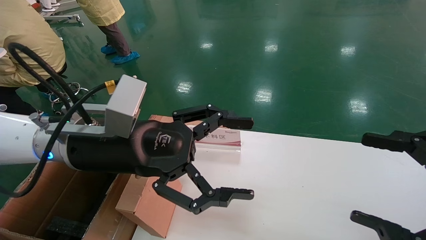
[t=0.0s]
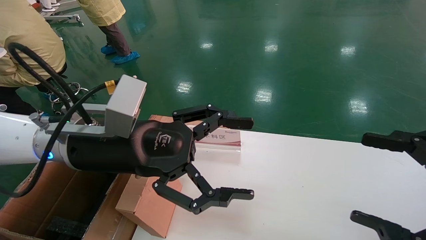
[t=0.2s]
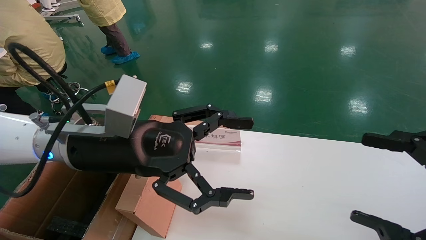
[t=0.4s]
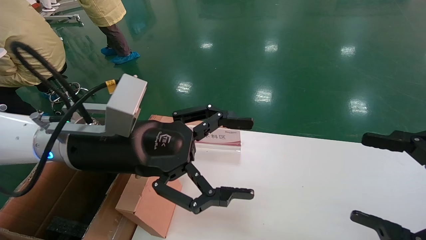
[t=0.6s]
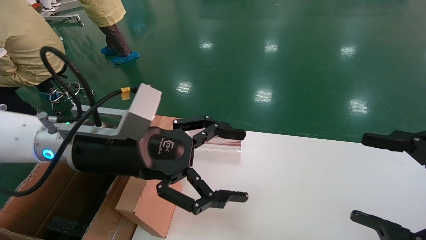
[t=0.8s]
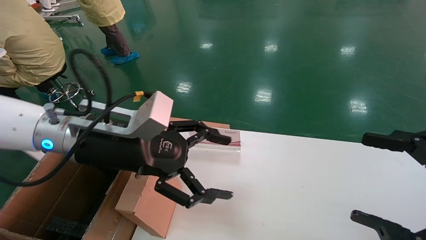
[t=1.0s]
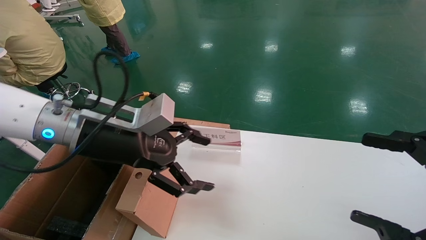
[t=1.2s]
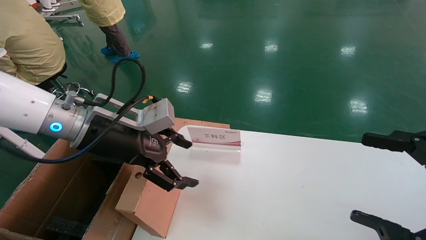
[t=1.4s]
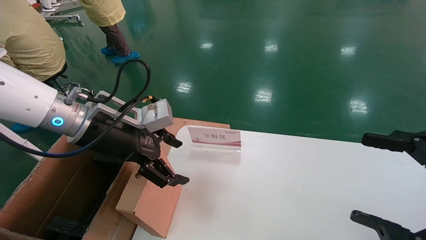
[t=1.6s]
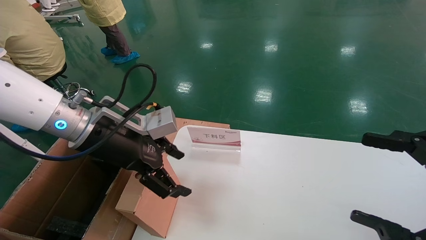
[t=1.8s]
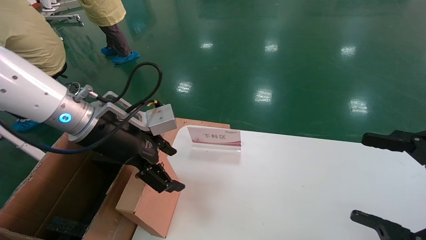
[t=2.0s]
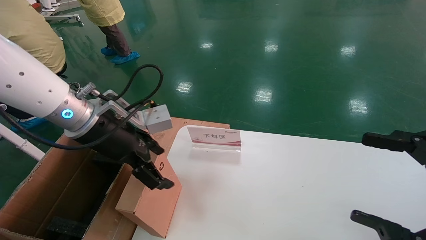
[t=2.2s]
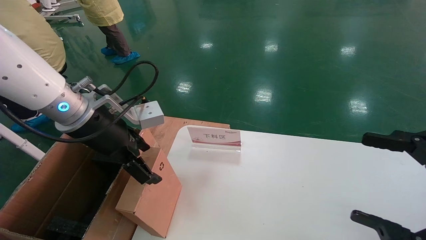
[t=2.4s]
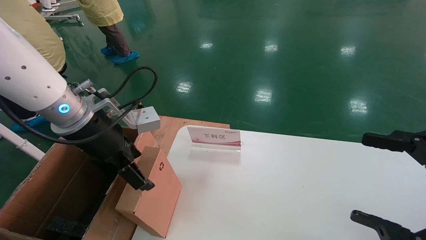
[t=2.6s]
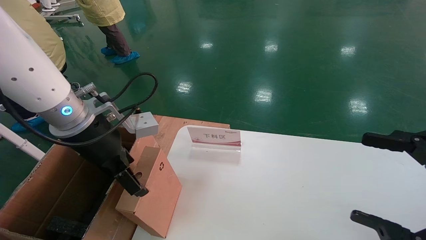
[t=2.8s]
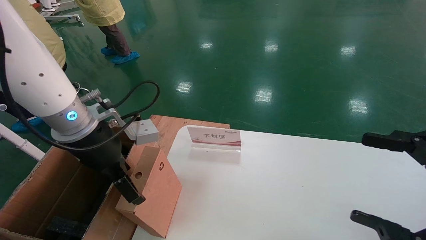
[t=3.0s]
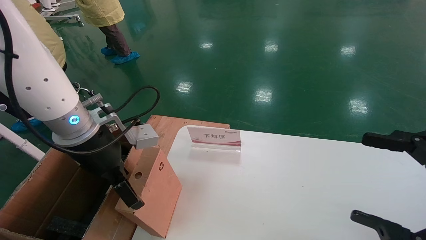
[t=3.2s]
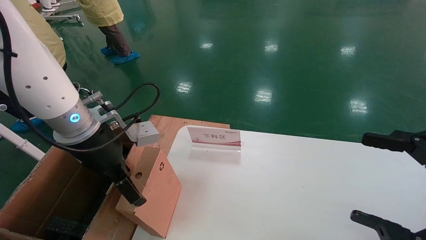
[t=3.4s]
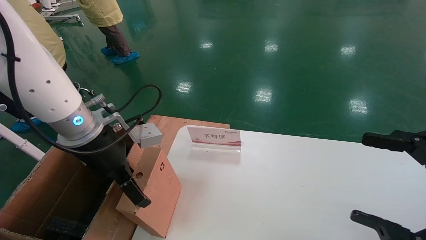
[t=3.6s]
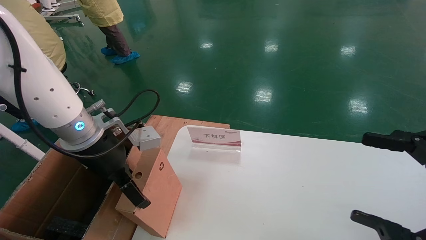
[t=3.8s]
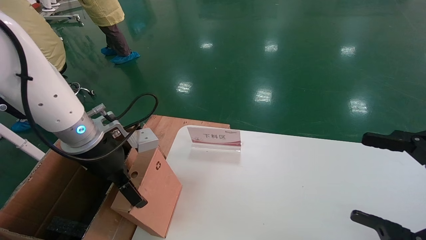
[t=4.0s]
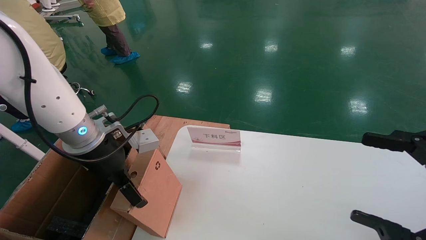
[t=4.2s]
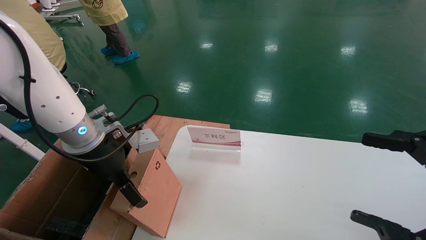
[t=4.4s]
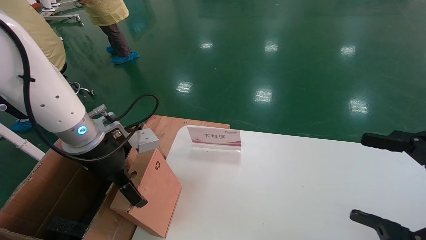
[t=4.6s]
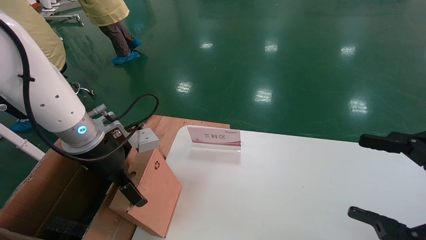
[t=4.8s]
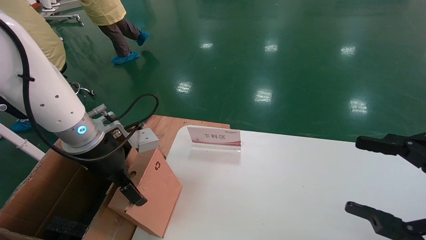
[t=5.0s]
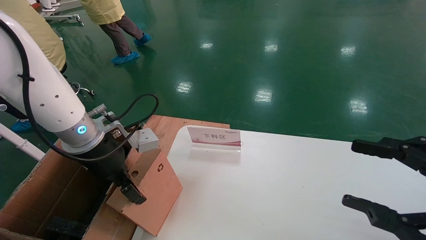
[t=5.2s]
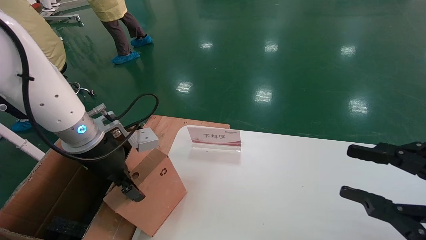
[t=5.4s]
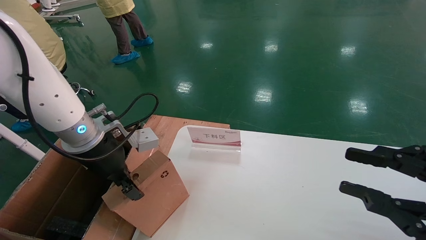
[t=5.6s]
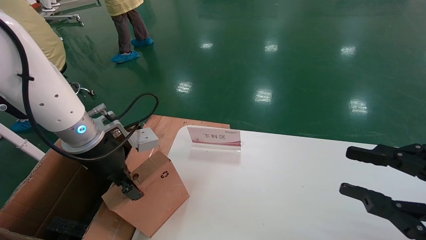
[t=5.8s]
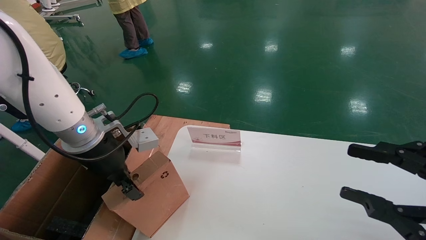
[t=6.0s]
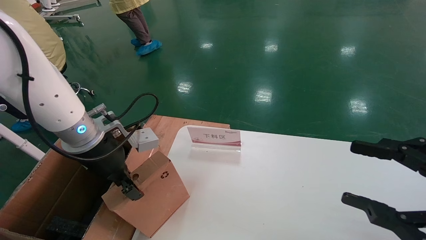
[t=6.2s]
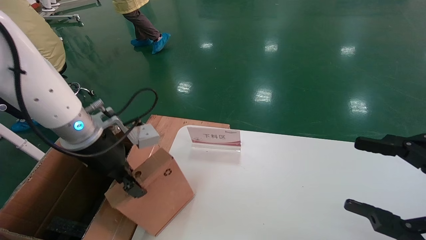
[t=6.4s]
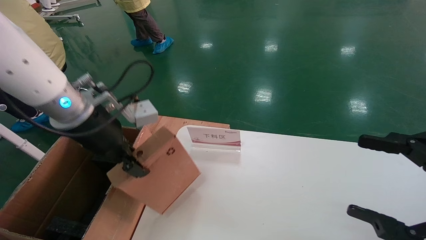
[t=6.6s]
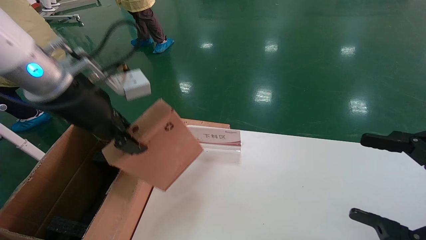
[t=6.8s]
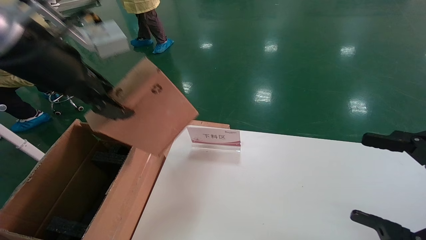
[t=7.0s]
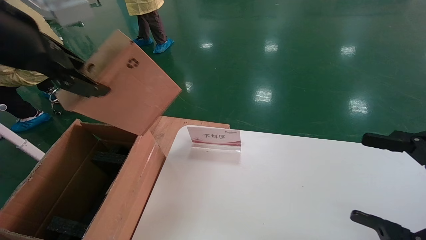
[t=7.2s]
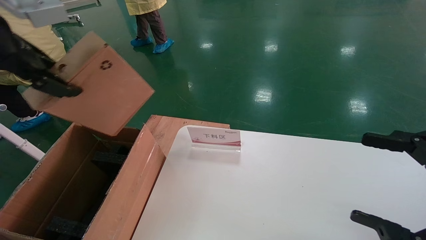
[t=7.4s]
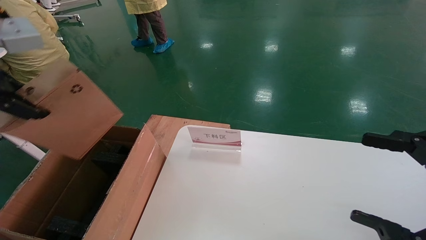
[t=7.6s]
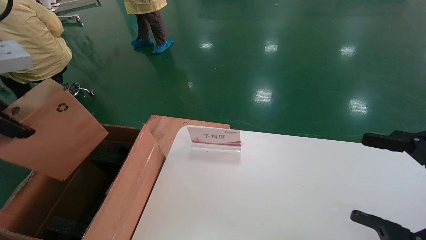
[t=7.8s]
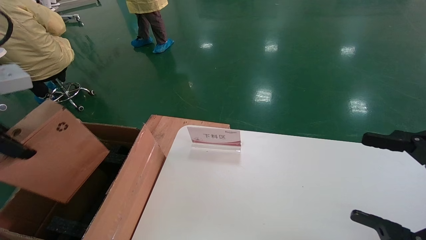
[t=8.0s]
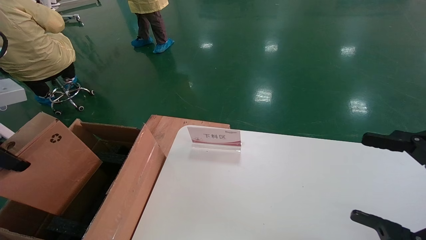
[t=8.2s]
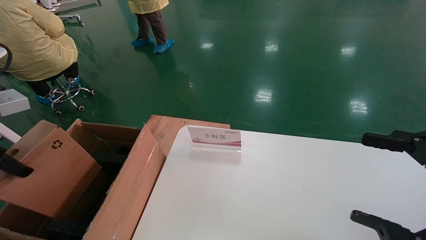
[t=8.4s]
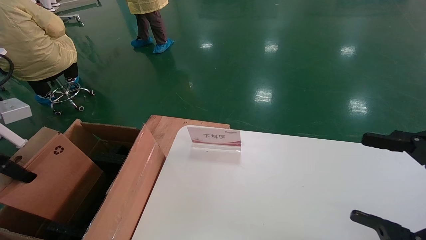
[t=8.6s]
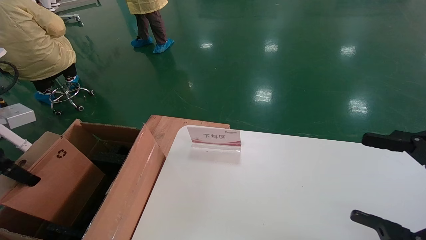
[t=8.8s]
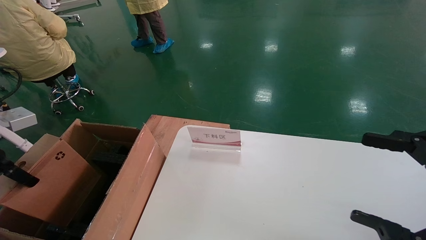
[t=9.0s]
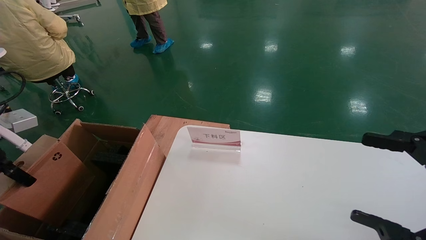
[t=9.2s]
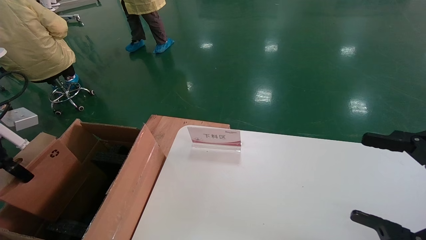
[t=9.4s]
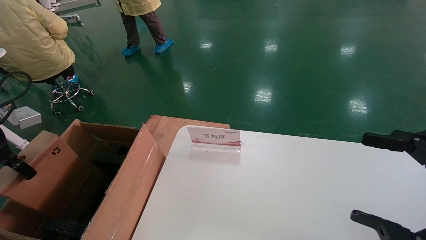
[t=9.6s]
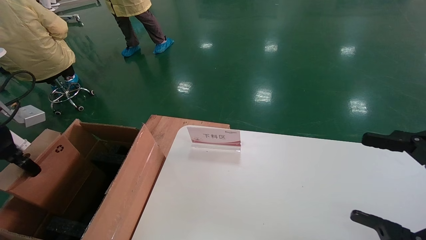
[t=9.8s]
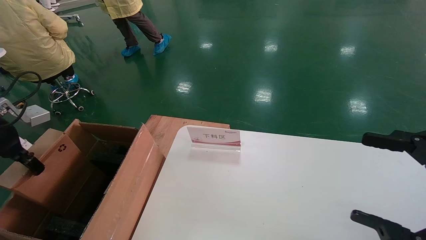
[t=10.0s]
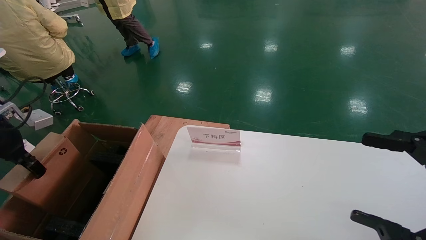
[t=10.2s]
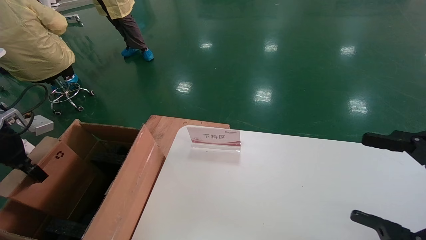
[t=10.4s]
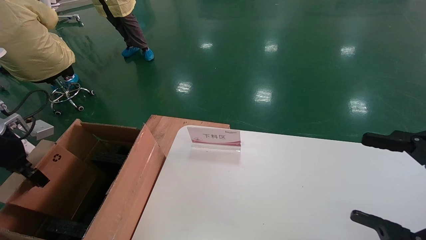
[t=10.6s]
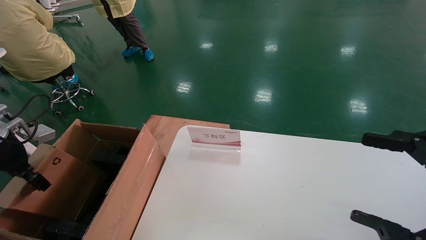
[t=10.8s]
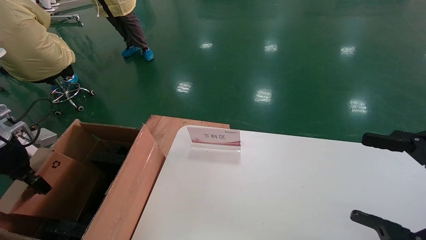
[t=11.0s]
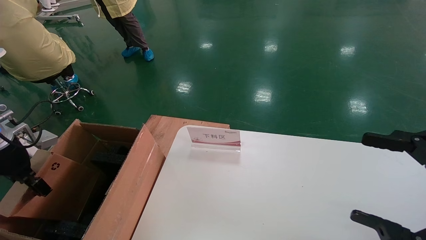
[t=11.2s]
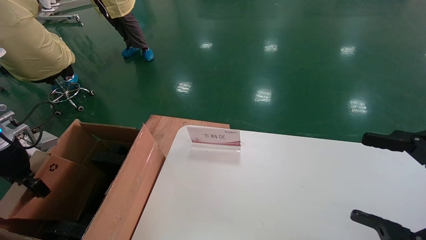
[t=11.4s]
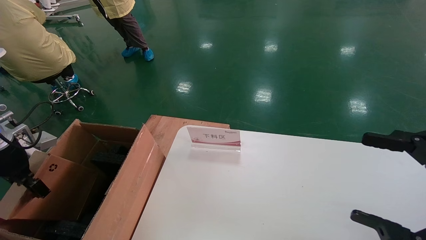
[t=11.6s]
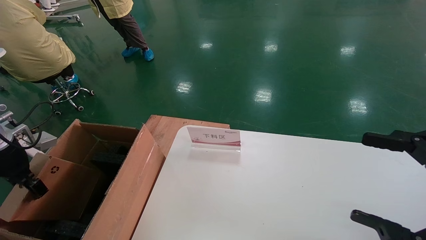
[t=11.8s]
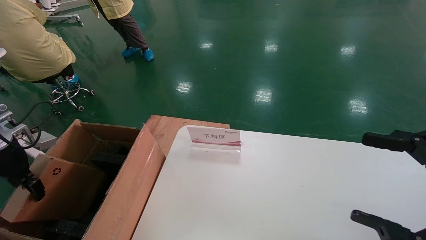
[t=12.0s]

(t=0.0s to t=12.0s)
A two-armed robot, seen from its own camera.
Task of the whole recording: pick up the small cardboard box and load it into the large cardboard box.
Step, t=1.2s - t=5.8s: Pick up the mouse and power cord box.
t=0.0s - t=1.6s: The left gripper moves about 5 cm.
t=3.0s - t=4.4s: The grippers make only small movements.
t=4.4s - t=6.0s: The right gripper closes, while the left gripper closes its fingers.
t=6.0s - t=7.6s: The left gripper is displaced upward, backward and to the left by approximately 25 cm, while the right gripper opens.
t=7.6s - t=9.0s: The left gripper moves downward and to the left, some 20 cm.
t=9.0s - t=10.4s: The left gripper goes about 5 cm forward.
t=10.4s - t=12.0s: The grippers stay close to where they were, moving slightly.

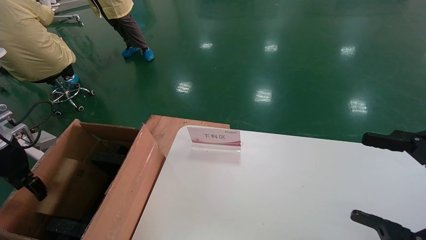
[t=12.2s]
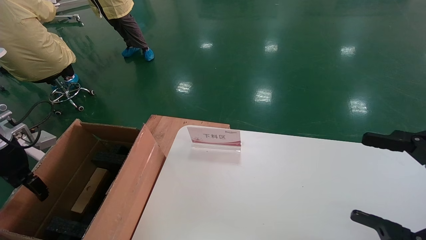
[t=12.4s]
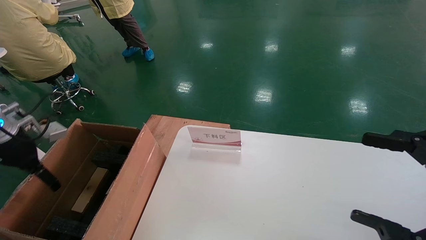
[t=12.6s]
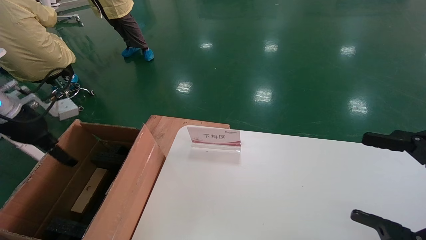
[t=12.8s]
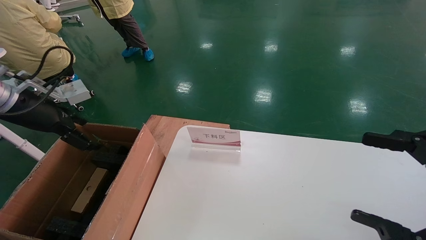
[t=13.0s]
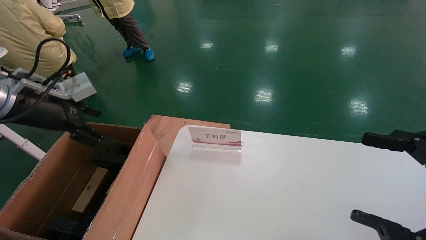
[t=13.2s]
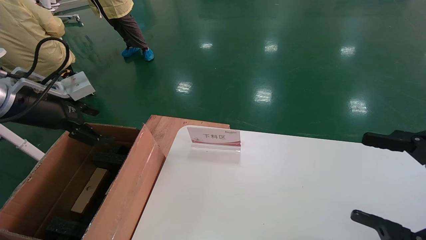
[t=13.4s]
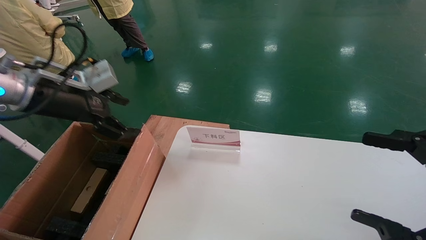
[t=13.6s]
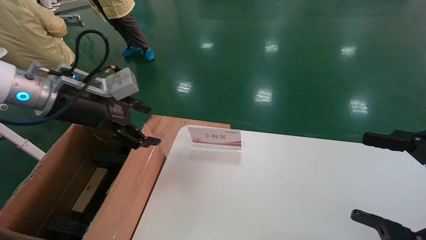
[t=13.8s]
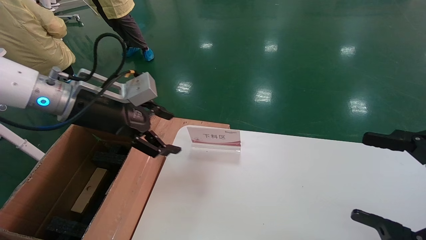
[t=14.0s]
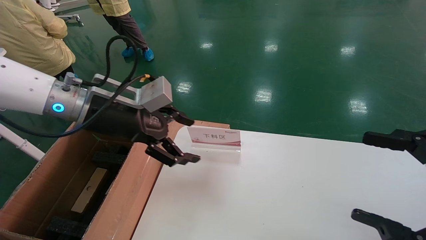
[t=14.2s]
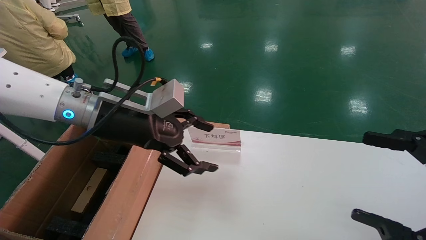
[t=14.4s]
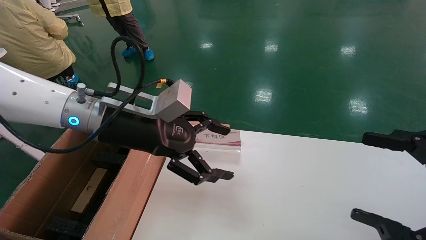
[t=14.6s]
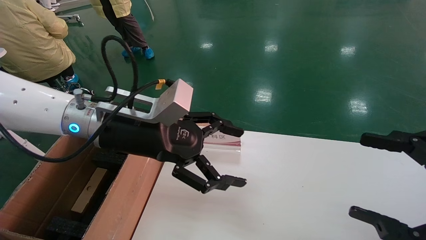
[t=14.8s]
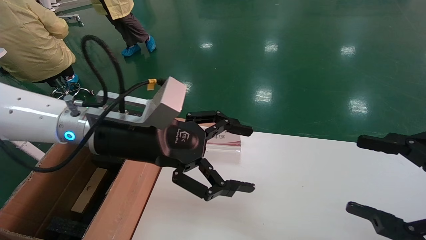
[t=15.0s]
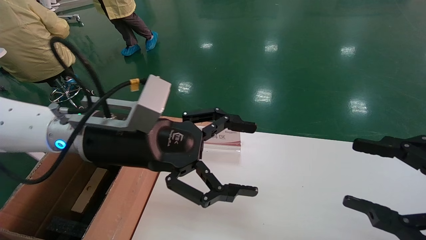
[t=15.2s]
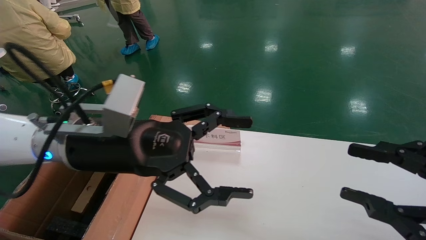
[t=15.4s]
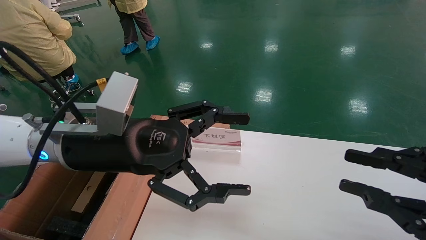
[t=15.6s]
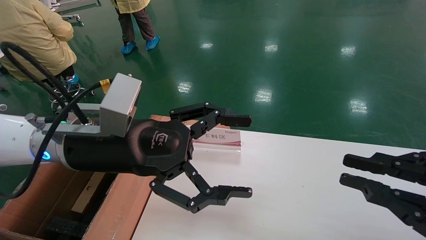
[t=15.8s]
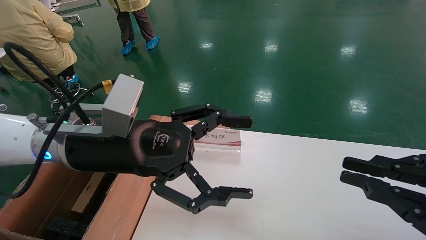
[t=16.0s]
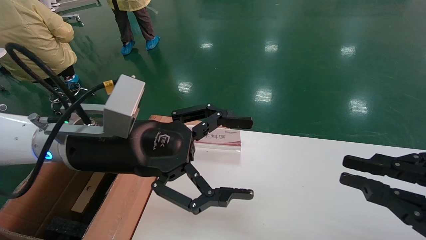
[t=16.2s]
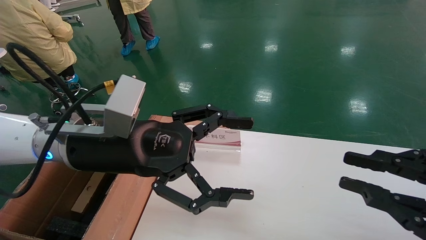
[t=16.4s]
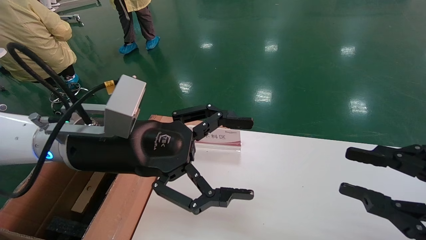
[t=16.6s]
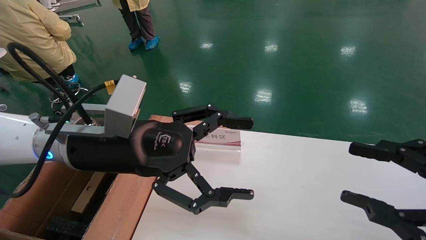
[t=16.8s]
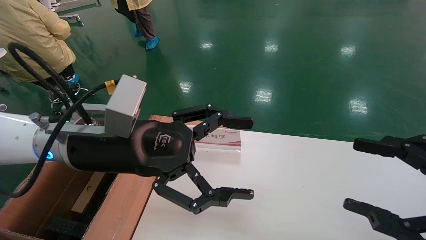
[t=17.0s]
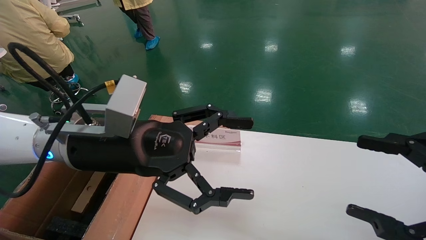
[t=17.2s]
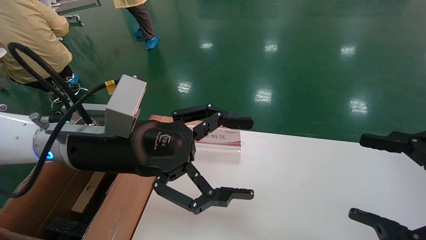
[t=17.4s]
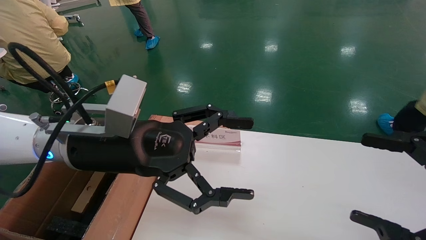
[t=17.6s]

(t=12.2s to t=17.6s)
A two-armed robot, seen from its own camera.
Task of the whole recording: pick up the small cardboard box and load it into the large cardboard box.
t=12.2s - t=13.6s: The left gripper shifts roughly 15 cm to the right and upward, and opens up.
t=13.6s - t=15.0s: The left gripper goes roughly 20 cm to the right.
t=15.0s - t=16.2s: The right gripper closes.
t=16.2s - t=17.6s: The right gripper opens up.
